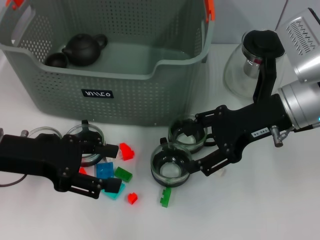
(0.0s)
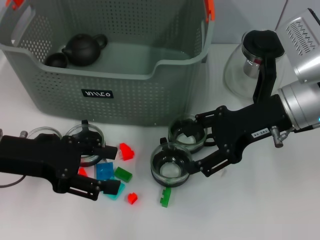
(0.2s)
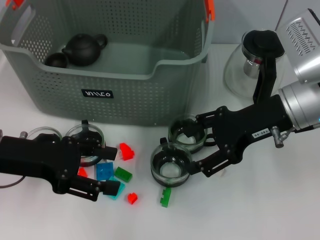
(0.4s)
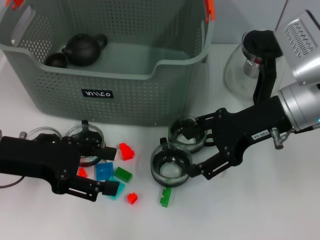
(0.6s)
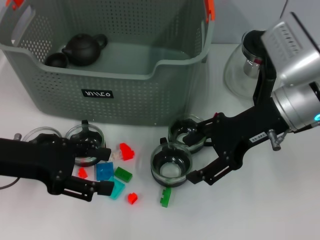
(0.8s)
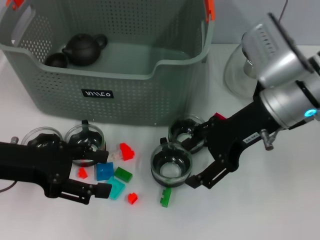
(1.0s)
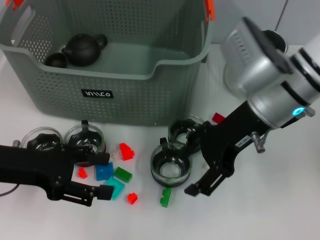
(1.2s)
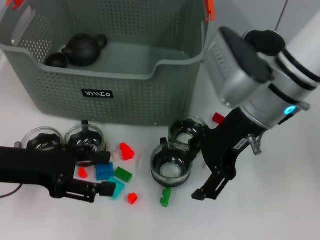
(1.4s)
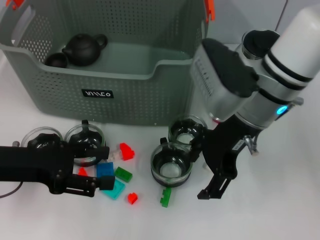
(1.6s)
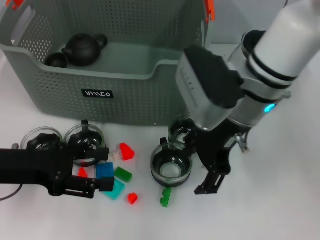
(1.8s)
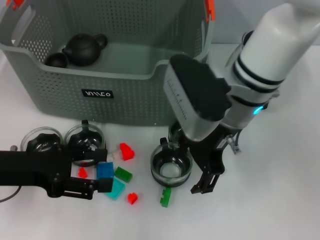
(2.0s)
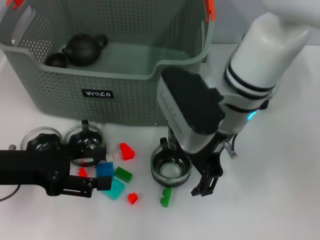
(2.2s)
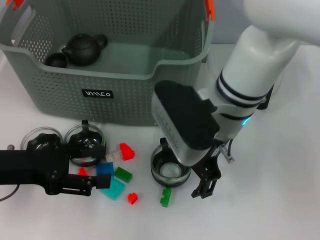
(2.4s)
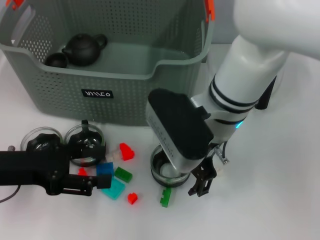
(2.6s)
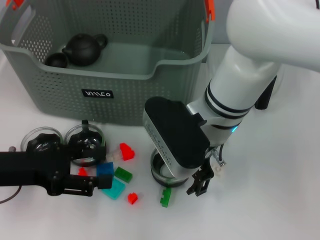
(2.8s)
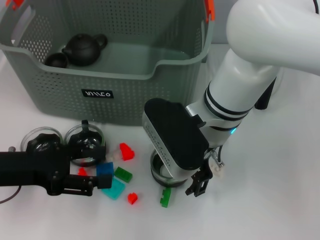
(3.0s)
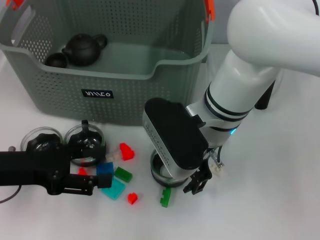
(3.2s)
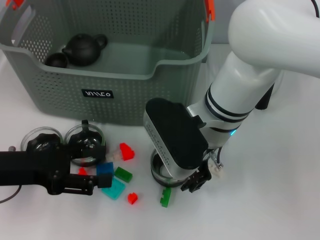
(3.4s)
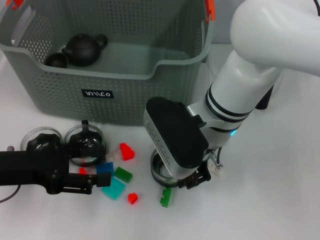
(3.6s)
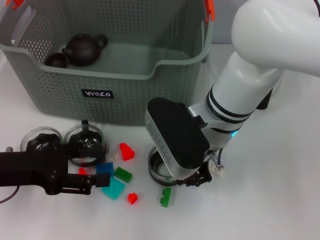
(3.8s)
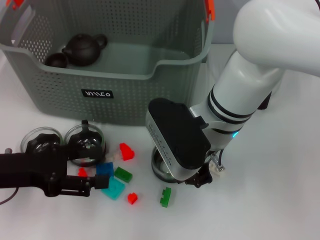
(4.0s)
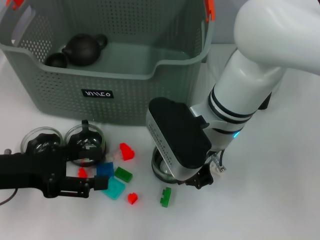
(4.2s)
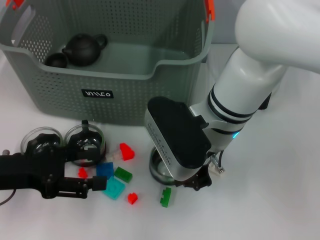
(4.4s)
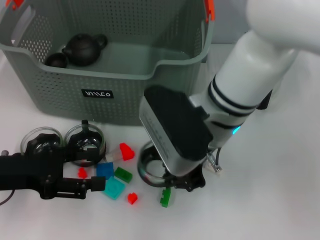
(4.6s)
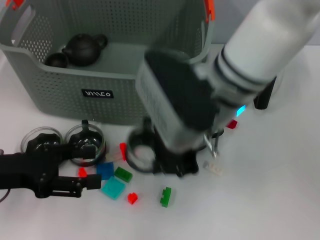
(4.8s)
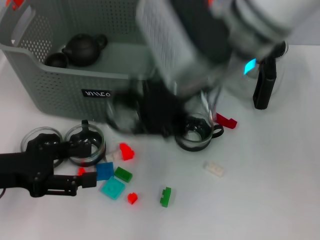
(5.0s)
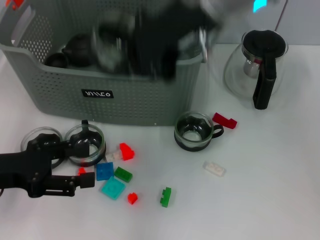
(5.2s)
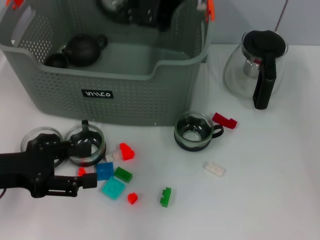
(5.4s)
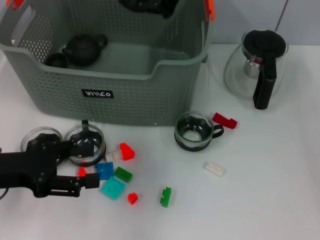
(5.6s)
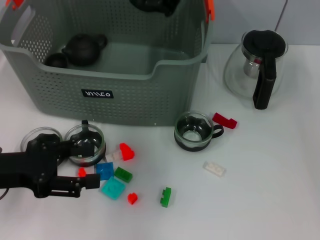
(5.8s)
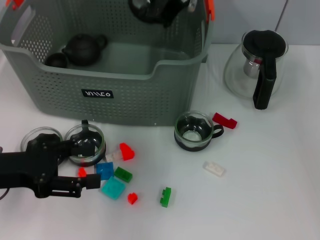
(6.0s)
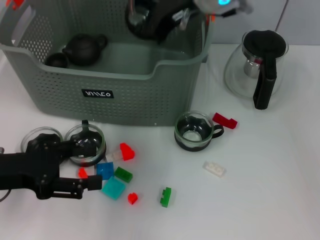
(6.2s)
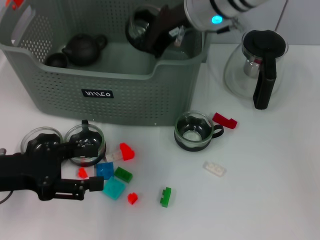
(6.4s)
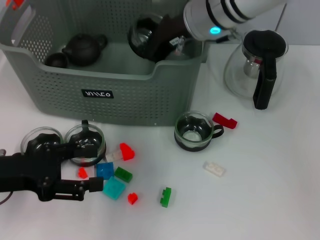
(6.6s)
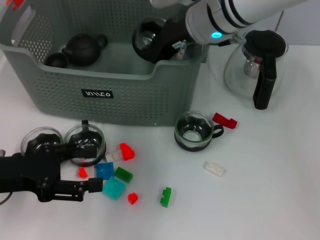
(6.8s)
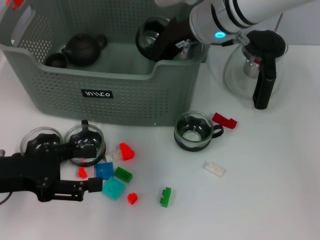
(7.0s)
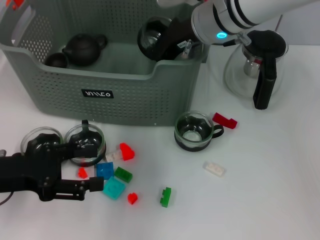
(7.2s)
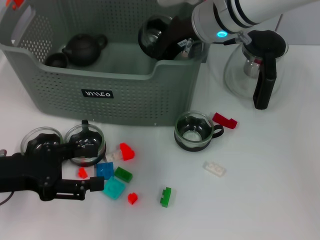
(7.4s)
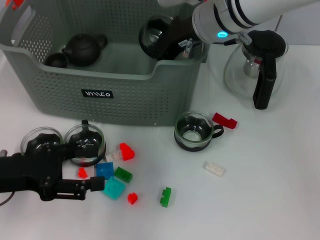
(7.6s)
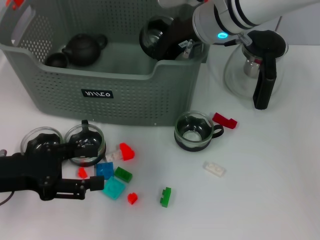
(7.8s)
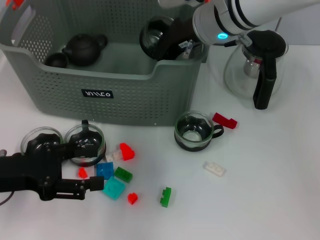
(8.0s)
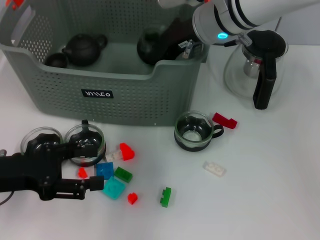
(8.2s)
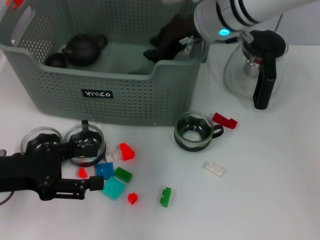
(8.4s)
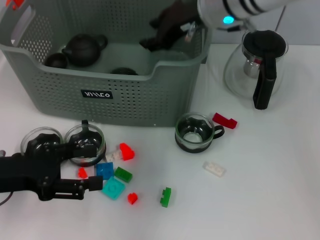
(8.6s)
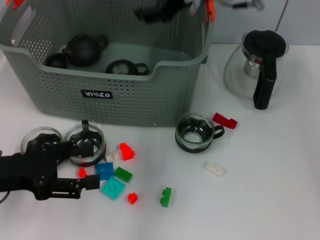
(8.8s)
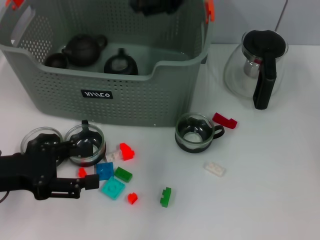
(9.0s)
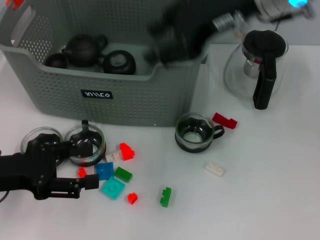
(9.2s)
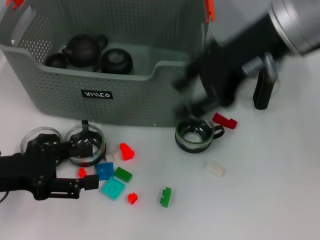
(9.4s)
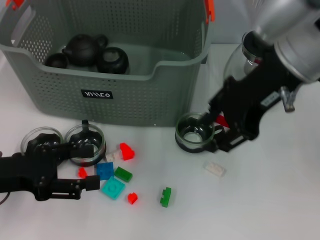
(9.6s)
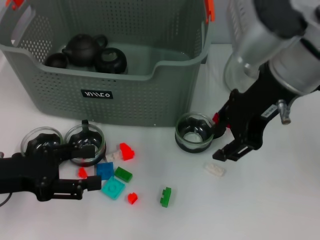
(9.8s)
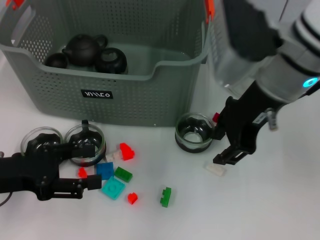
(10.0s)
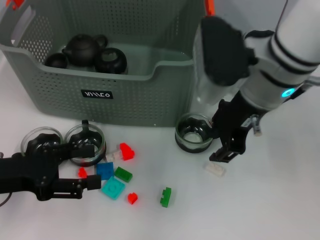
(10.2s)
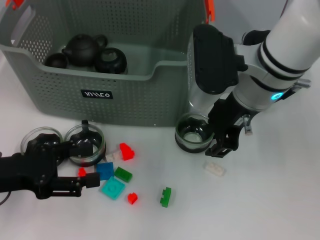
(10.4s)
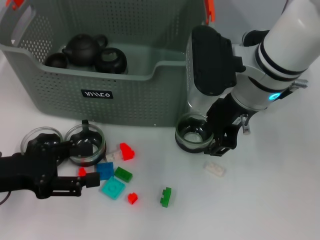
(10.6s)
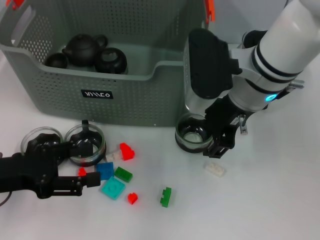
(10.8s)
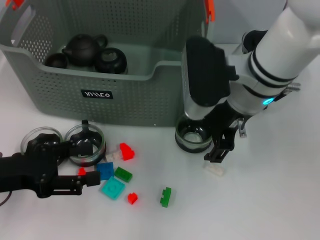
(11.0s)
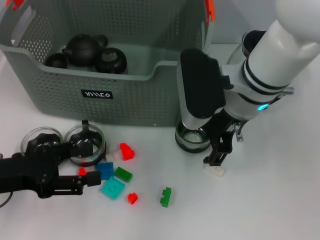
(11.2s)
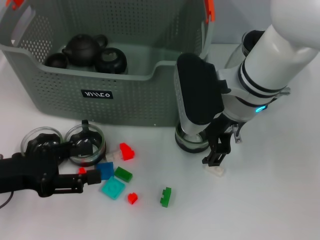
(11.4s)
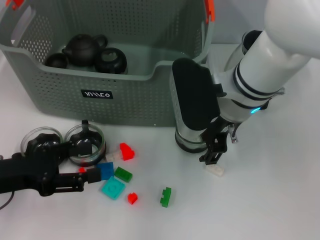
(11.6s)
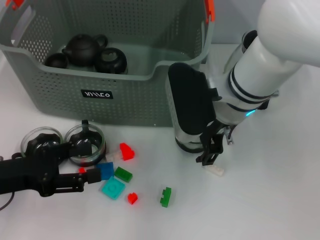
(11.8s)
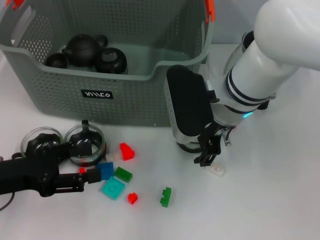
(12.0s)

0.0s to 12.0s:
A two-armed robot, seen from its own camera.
Task of the whole recording: pick up the teacup on the table and place it into the storage bin, pick up the block on the table and place it into the storage bin.
Step, 0.0s to 4.0s: Grasp the cup with right gripper.
Step, 4.2s to 8.4s: Place the cup in the storage box with right gripper.
0.0s to 1.6s: The right gripper heads to the left, covering some 10 cm.
1.6s to 3.0s: The right gripper travels to the left by about 5 cm.
3.0s to 4.4s: The right gripper closes up.
4.4s to 6.0s: The right gripper shifts approximately 15 cm forward and upward.
6.0s to 7.6s: The right gripper goes approximately 5 cm downward.
7.6s to 9.0s: The right gripper goes roughly 10 cm upward, and opens its fingers.
9.0s to 10.4s: The right gripper shifts some 10 cm downward and backward.
10.4s to 12.0s: The right gripper changes place by some 5 cm, and opens its fingers.

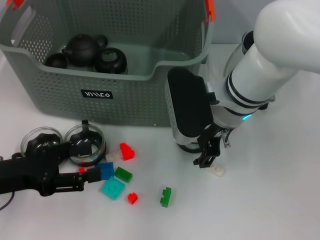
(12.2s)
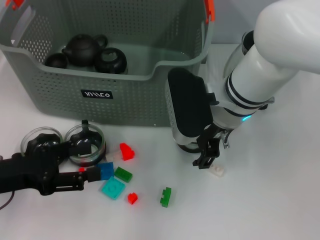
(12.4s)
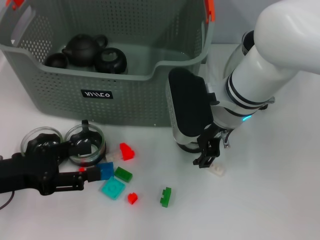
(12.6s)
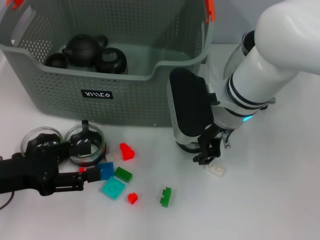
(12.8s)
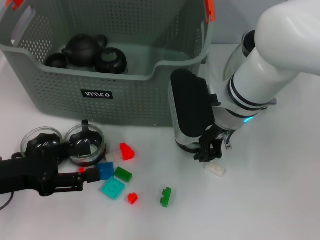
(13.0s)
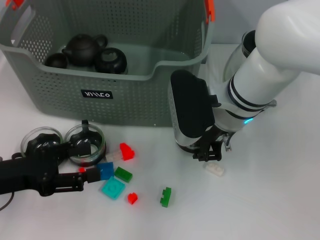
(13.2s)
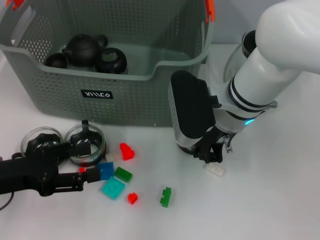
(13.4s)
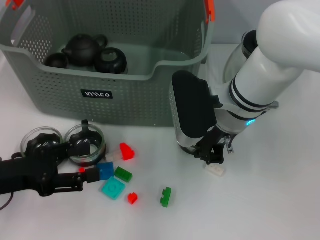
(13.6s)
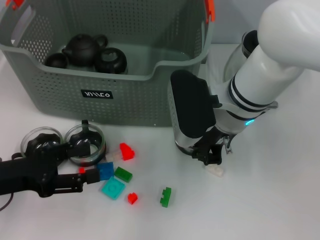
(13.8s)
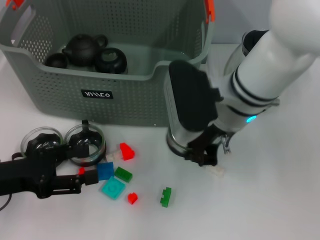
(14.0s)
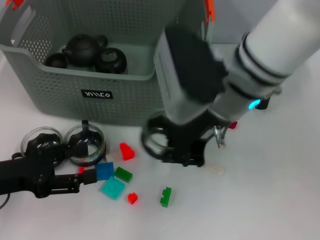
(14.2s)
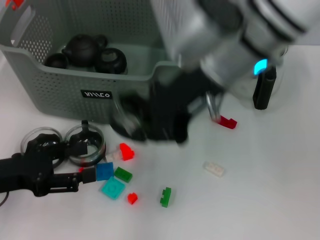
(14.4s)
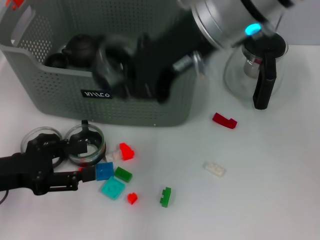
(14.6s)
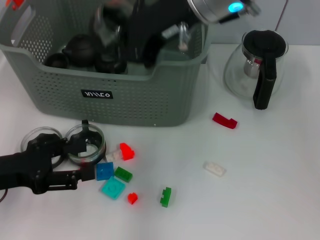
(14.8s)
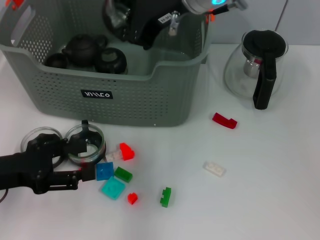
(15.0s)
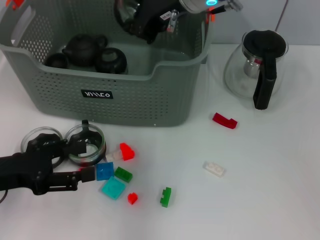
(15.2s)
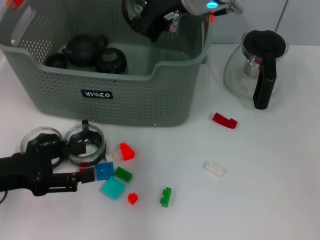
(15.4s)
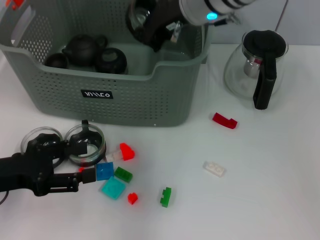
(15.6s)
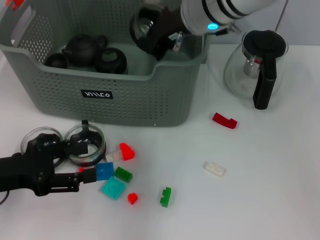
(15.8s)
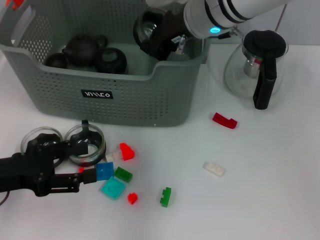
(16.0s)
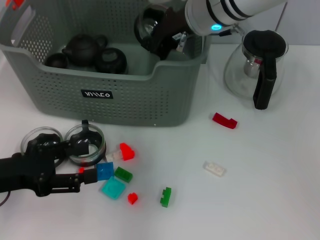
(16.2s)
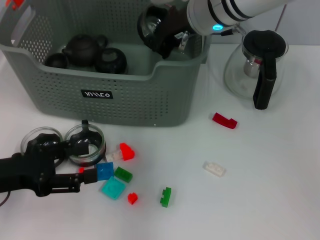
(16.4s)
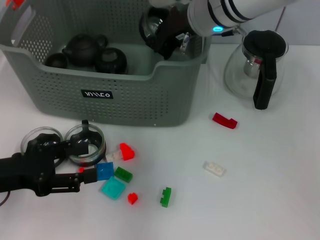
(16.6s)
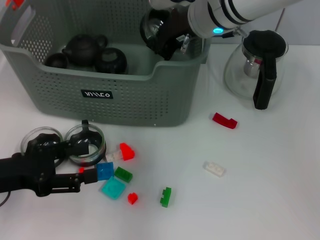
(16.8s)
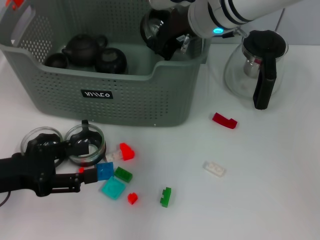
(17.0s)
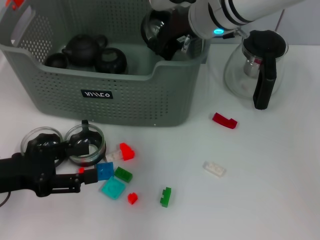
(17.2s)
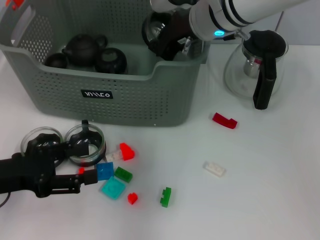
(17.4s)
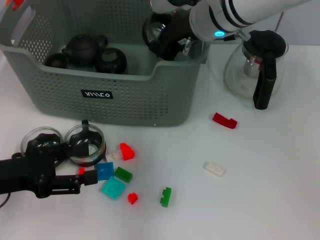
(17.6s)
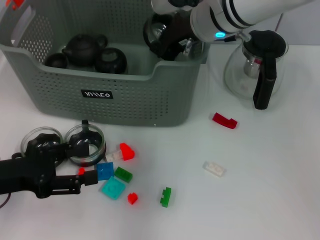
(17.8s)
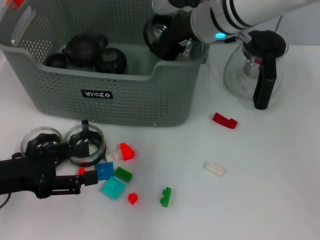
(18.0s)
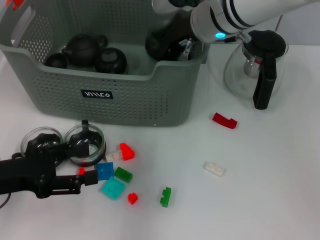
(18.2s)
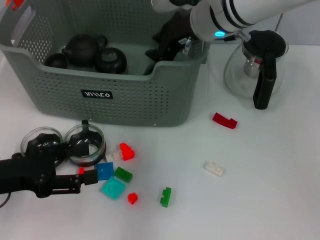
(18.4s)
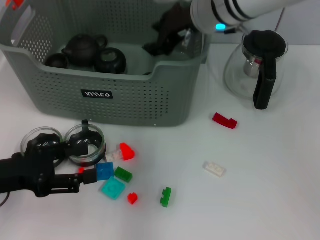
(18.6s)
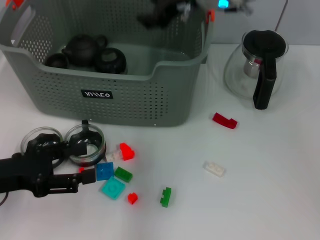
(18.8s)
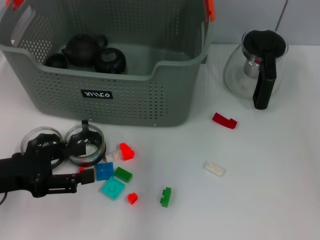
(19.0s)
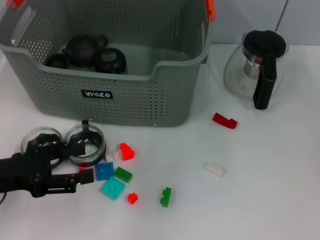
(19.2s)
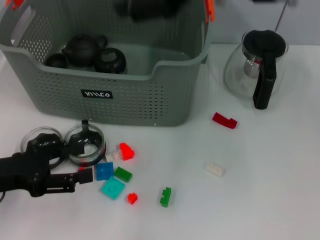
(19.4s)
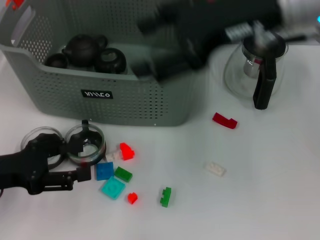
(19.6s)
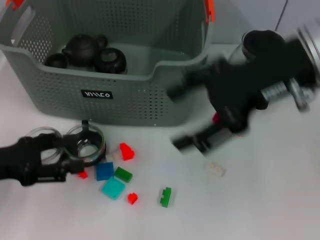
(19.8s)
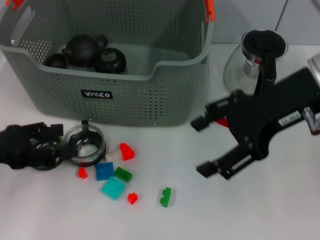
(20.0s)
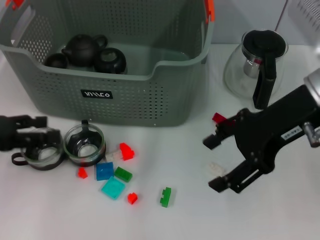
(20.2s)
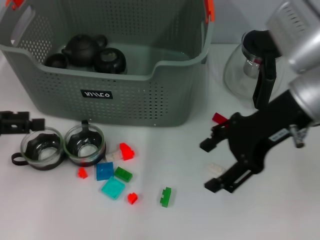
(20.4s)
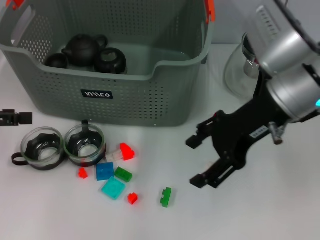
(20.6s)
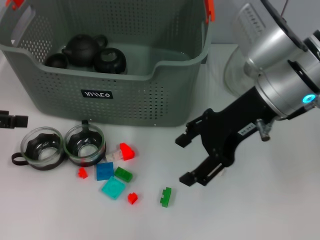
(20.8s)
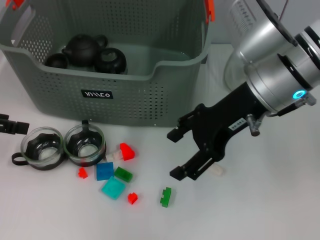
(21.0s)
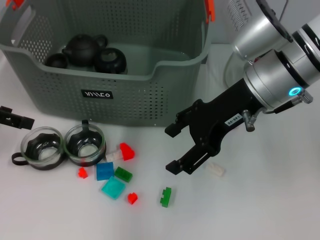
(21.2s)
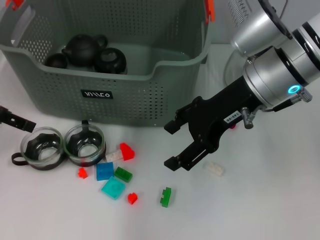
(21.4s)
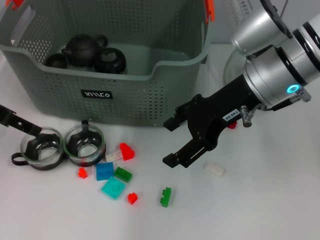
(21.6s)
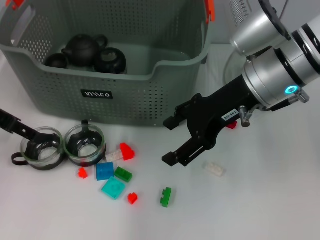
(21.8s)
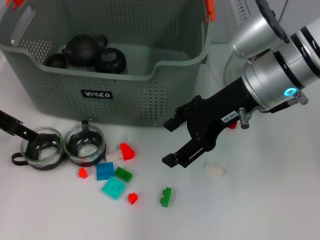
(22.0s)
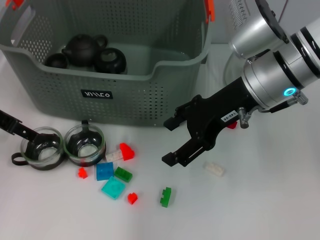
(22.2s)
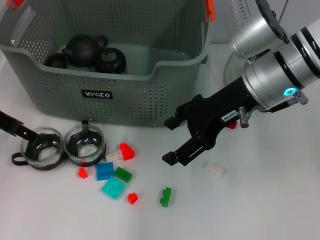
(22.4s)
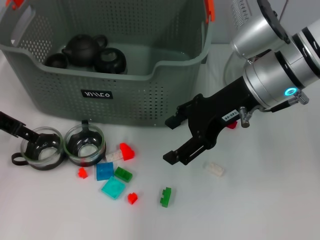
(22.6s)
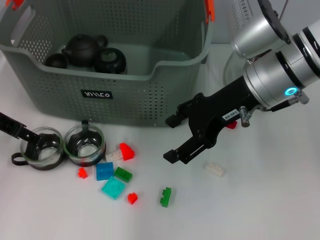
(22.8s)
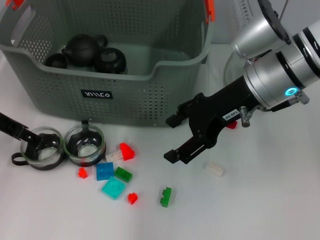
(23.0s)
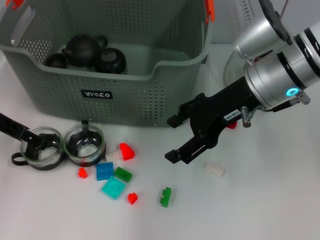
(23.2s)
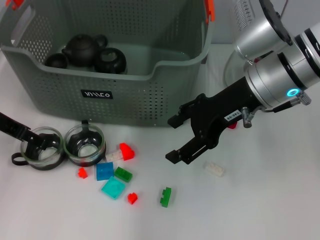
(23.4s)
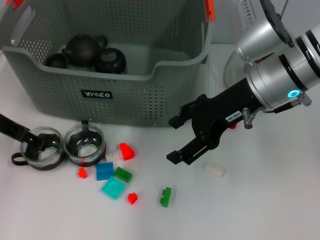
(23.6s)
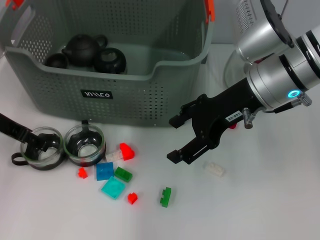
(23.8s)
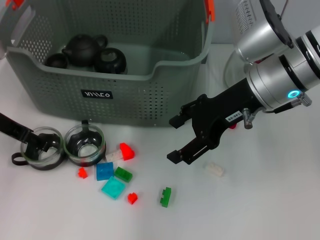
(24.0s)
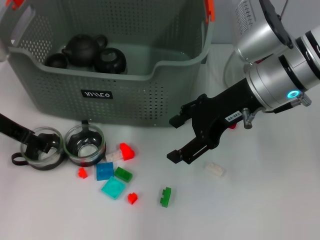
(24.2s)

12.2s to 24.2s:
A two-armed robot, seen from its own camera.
Task of the whole recording: pick up the teacup on the table and place it into the storage bin, pick up the block on the table and place it into the storage bin.
Step, 13.6s to 18.6s: Place the cup in the storage box with right gripper.
12.2s to 13.8s: The right gripper closes.
13.8s to 15.2s: The right gripper travels upward and forward by some 15 cm.
15.2s to 16.6s: The right gripper changes place by roughly 5 cm.
16.6s to 18.2s: Neither gripper changes place.
18.2s to 19.8s: The right gripper travels backward, to the right and upward by roughly 20 cm, and opens its fingers.
19.8s to 21.2s: The left gripper is displaced forward and upward by some 15 cm. The right gripper travels downward by approximately 5 cm.
21.2s to 22.6s: The left gripper ends up some 5 cm from where it was.
22.6s to 24.2s: The grippers stay close to where they were, moving slightly.
